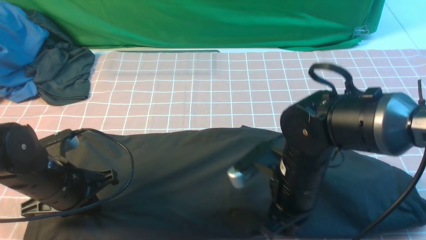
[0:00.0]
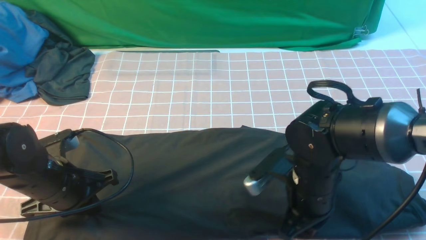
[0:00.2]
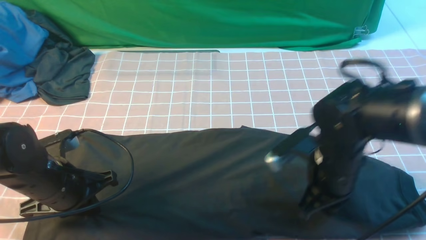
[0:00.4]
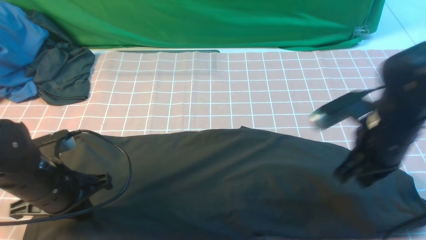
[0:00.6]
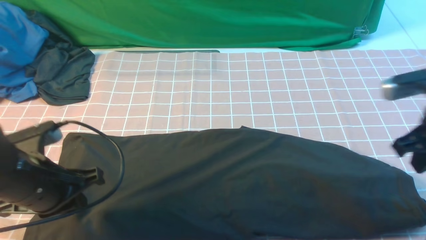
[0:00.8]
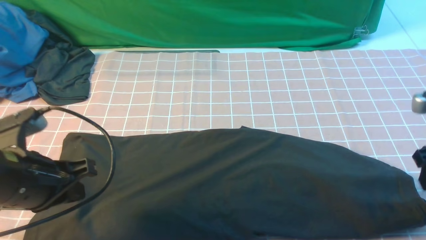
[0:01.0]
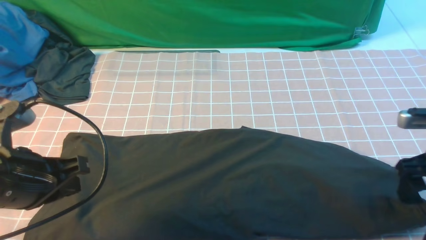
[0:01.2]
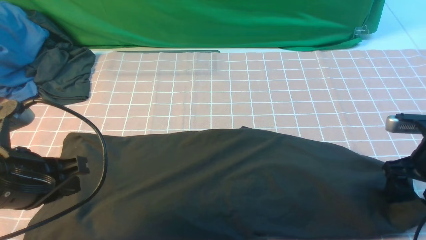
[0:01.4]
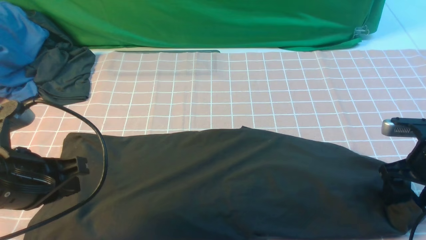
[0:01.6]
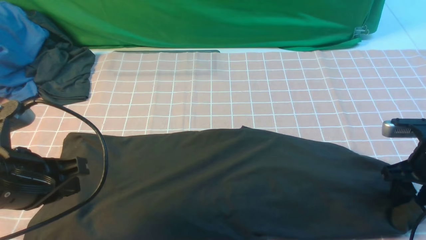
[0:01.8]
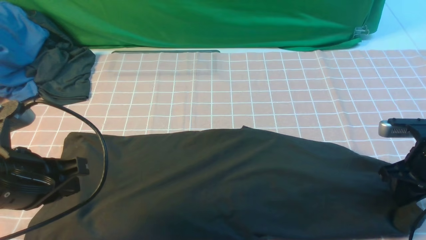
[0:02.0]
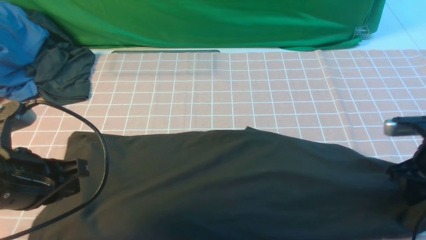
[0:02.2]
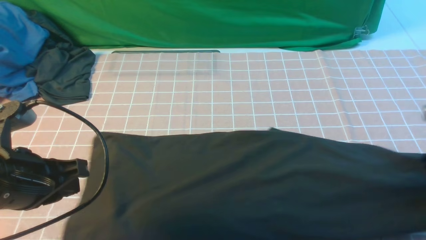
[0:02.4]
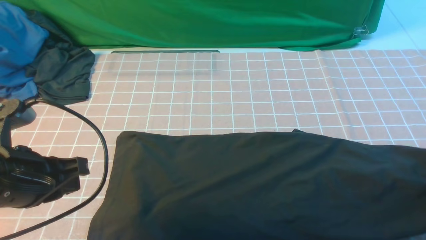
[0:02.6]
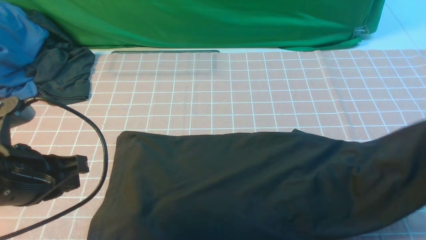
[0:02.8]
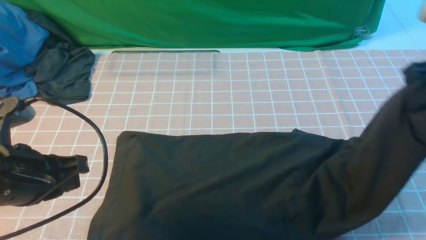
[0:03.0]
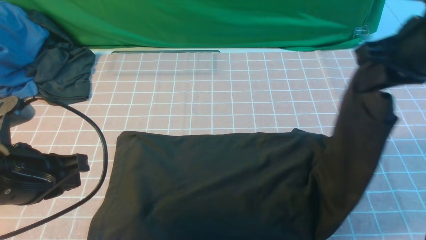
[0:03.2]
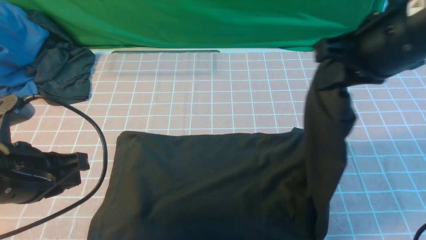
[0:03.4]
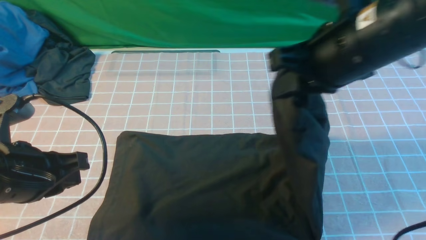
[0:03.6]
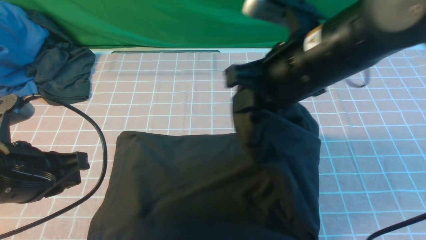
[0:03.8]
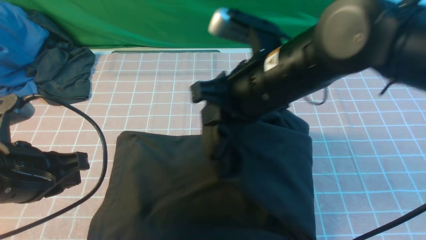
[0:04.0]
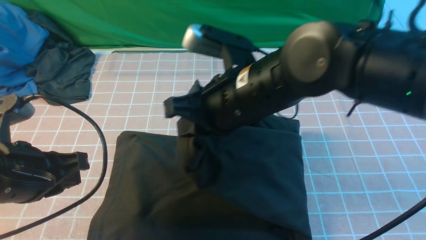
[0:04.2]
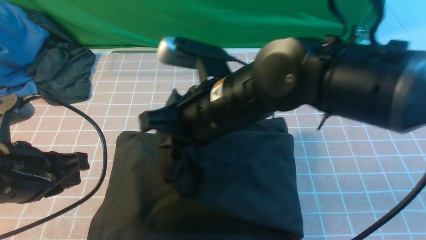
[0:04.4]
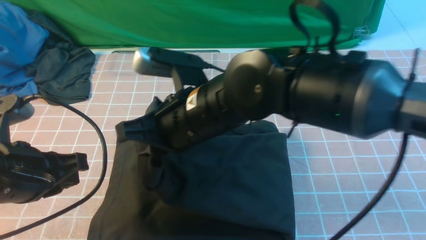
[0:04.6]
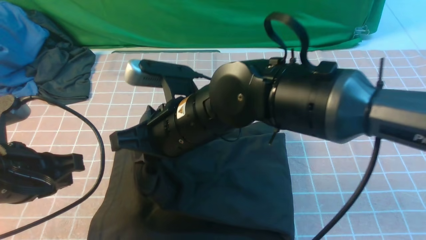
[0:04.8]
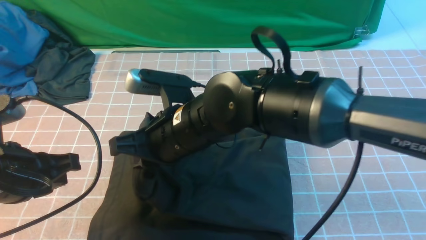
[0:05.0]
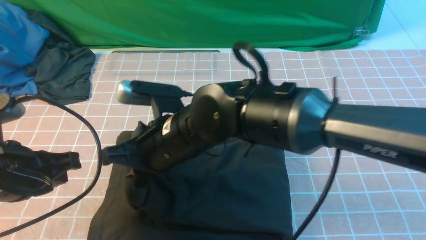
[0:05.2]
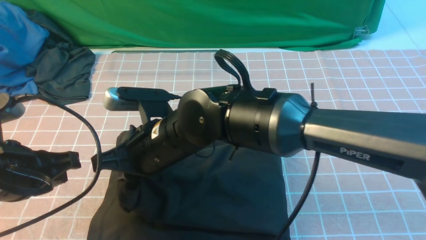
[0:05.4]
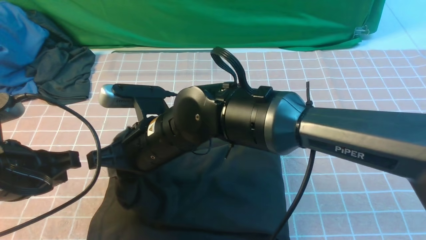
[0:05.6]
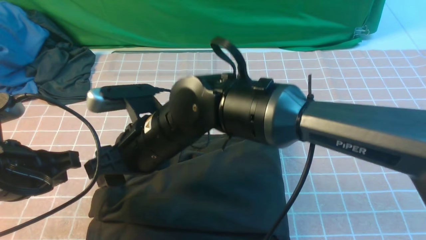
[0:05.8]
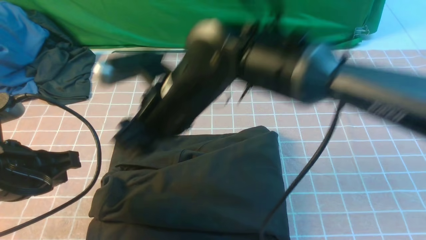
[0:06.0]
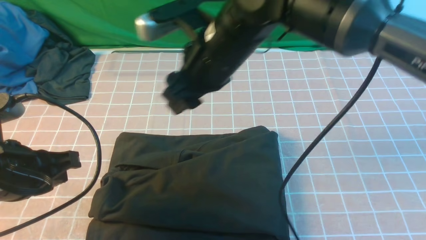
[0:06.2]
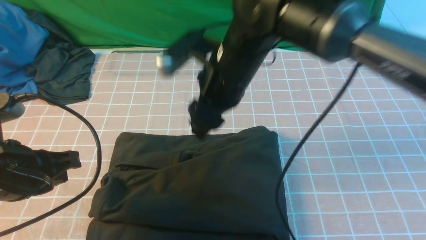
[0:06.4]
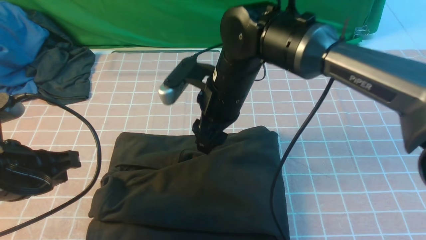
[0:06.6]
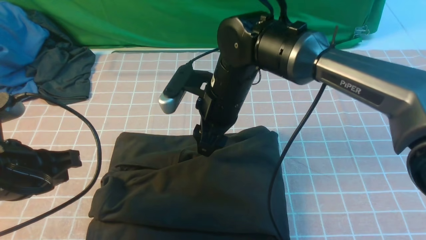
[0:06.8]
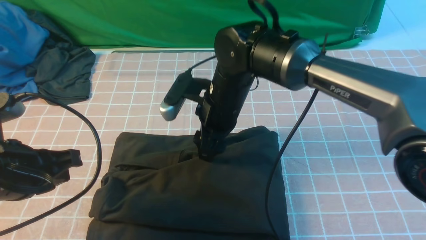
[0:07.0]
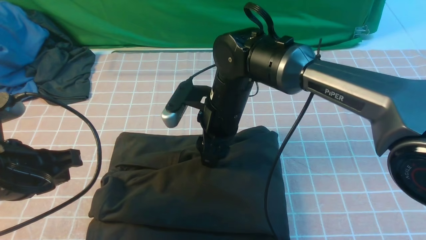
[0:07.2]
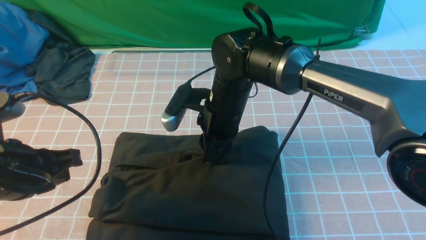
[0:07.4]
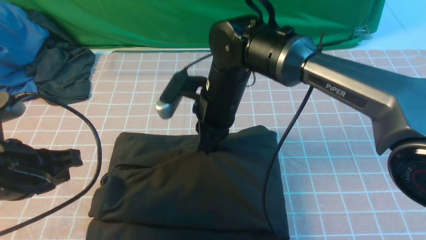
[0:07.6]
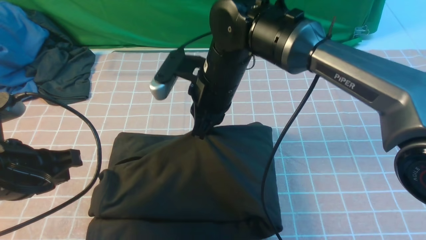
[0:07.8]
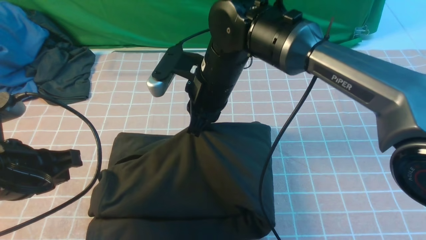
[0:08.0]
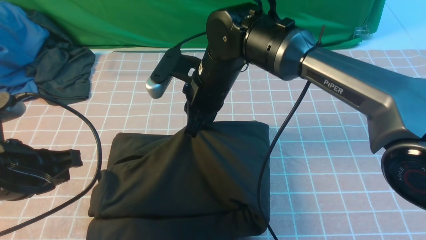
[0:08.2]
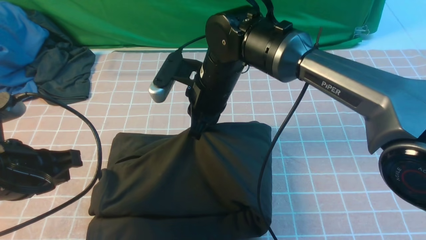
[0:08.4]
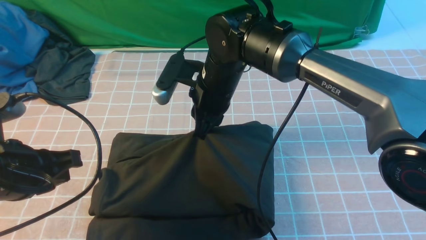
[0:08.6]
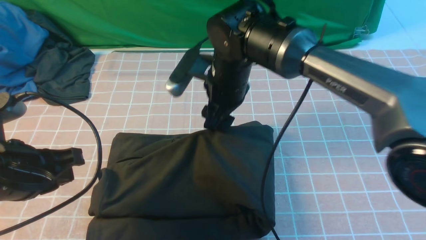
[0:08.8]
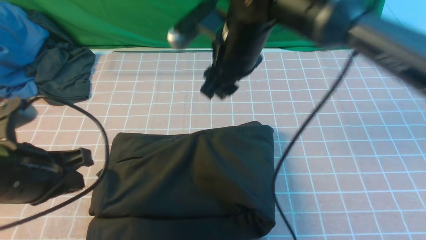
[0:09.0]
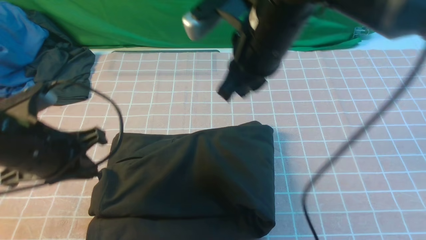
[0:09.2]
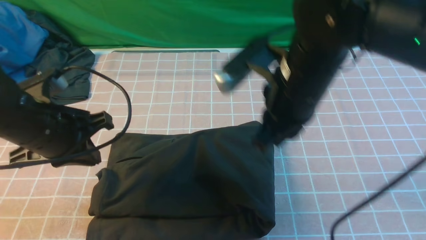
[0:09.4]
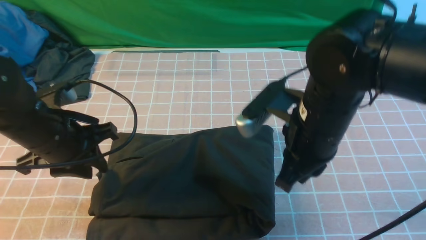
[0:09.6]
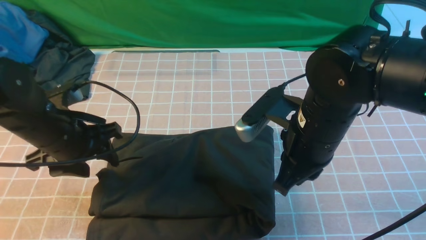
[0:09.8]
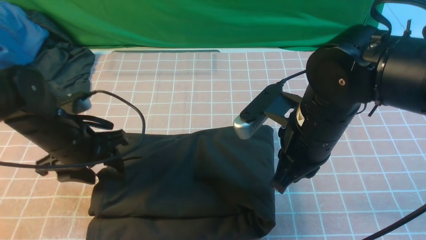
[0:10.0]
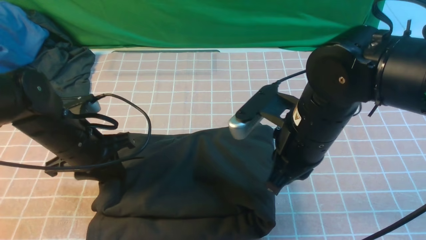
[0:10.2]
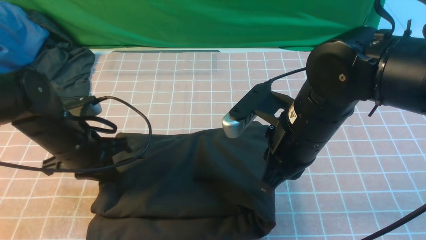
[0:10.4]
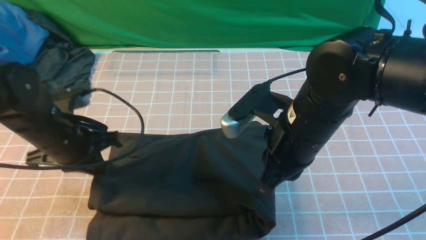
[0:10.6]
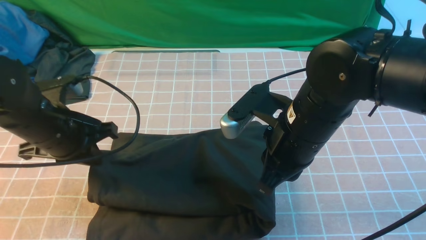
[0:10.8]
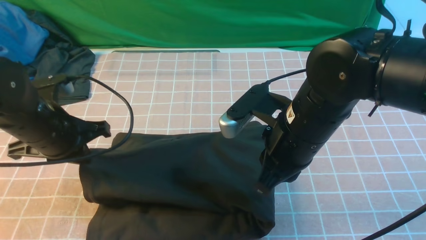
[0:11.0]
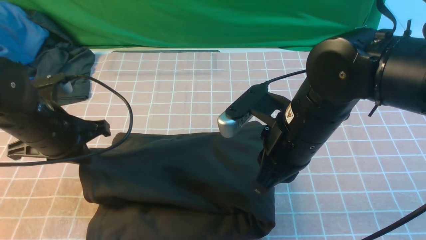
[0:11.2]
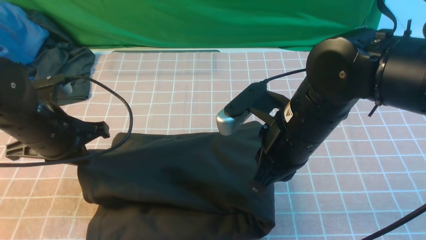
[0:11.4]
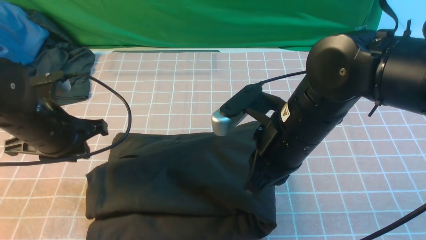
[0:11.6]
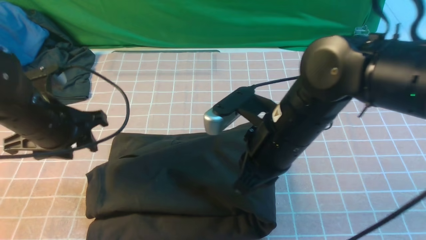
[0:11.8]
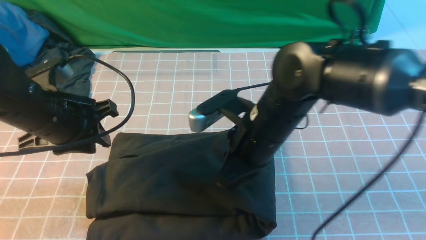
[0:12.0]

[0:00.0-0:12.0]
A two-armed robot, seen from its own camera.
Step, 0:02.0 to 0:06.2: use the right arm to drag the right edge of the fabric to the left and folds it over the left edge.
0:00.0 to 0:01.6: The right gripper moves to the right, about 25 cm, and opens its fingers. The left gripper is displaced upward and backward by about 10 cm.
0:01.6 to 0:03.0: The right gripper shifts some 20 cm upward, and closes.
0:03.0 to 0:04.4: The right gripper heads to the left, covering approximately 30 cm.
0:04.4 to 0:06.0: The right gripper opens.
0:06.0 to 0:07.6: The right gripper travels forward and downward by roughly 10 cm, and closes its fingers.
0:07.6 to 0:09.0: The right gripper goes about 10 cm upward, and opens up.
0:09.0 to 0:10.4: The right gripper moves backward and to the right, about 10 cm, and closes. Meanwhile the left gripper travels forward and downward by roughly 10 cm, and opens and closes again.
0:10.4 to 0:12.0: The right gripper changes place by some 5 cm, while the left gripper shifts roughly 5 cm upward.

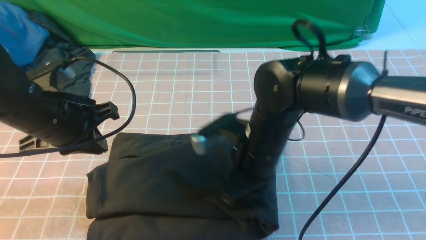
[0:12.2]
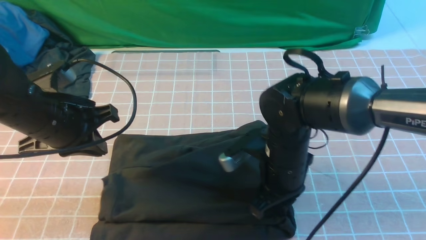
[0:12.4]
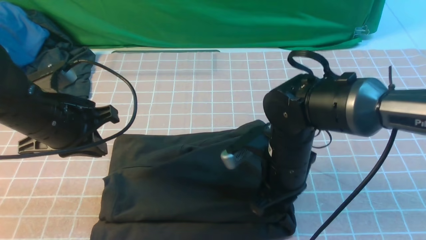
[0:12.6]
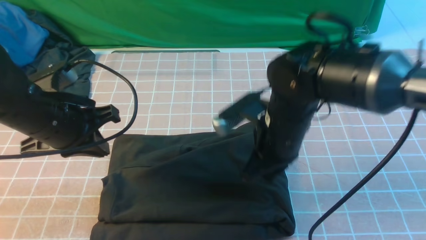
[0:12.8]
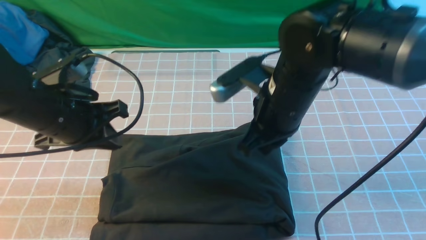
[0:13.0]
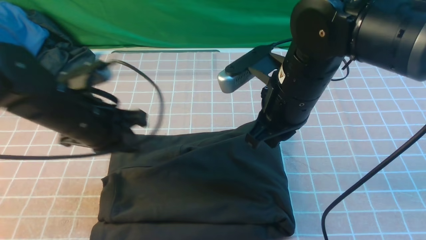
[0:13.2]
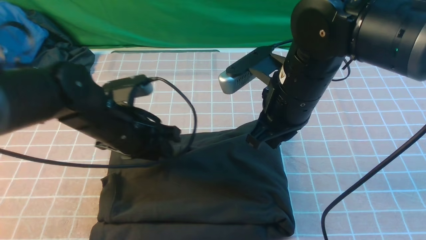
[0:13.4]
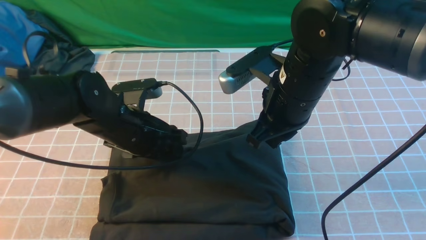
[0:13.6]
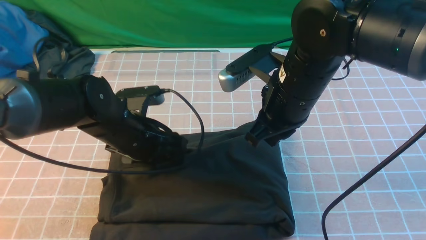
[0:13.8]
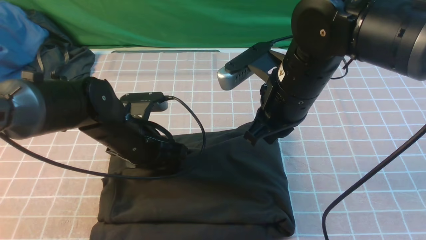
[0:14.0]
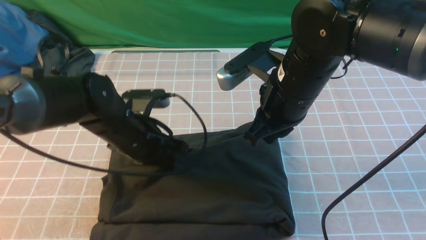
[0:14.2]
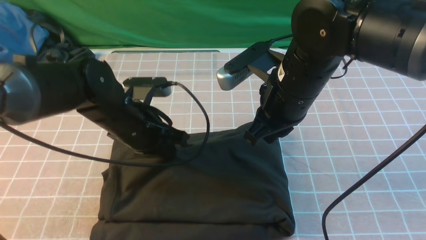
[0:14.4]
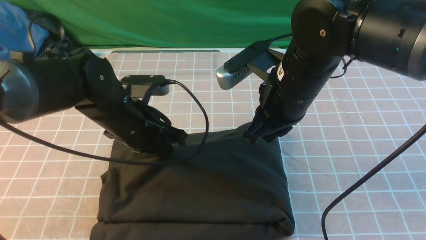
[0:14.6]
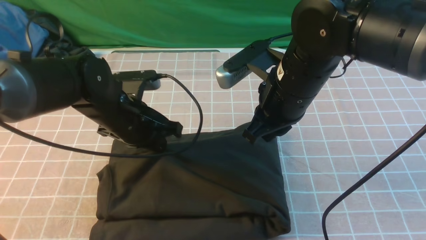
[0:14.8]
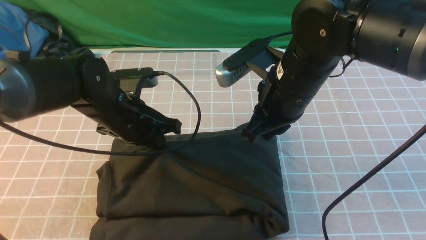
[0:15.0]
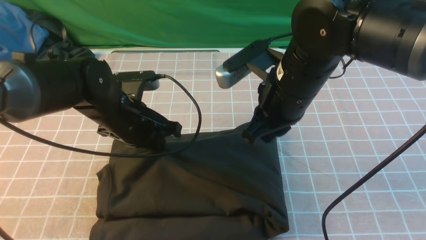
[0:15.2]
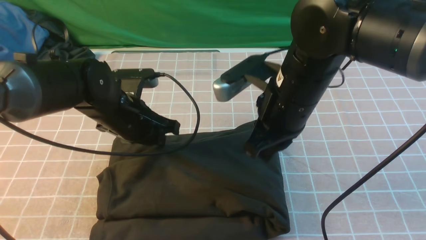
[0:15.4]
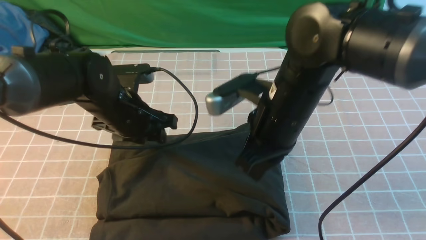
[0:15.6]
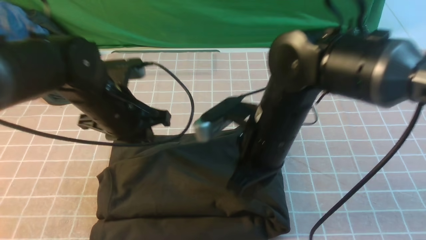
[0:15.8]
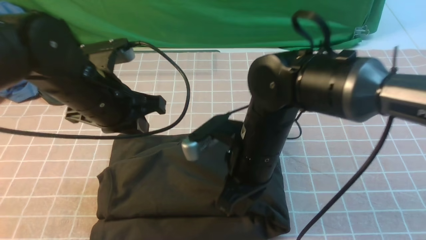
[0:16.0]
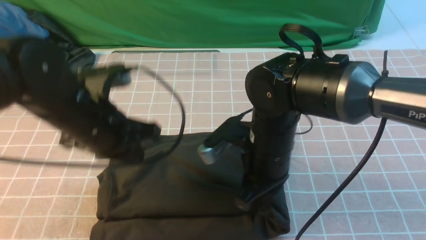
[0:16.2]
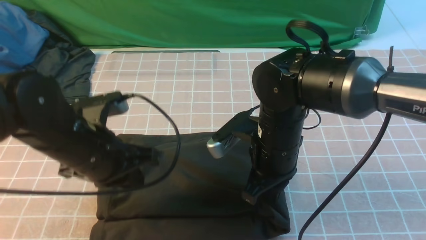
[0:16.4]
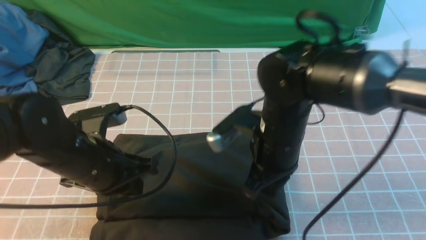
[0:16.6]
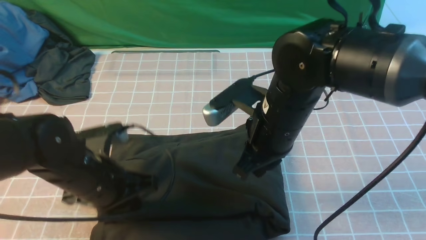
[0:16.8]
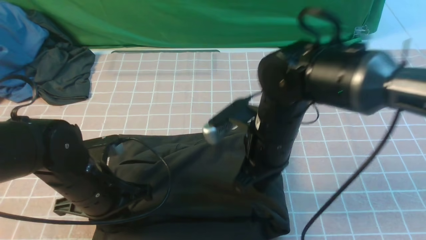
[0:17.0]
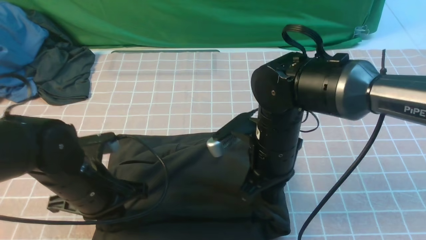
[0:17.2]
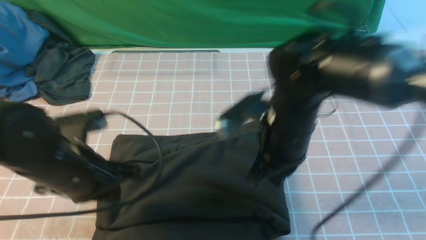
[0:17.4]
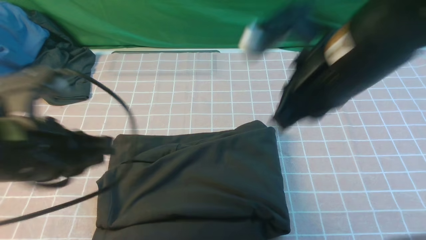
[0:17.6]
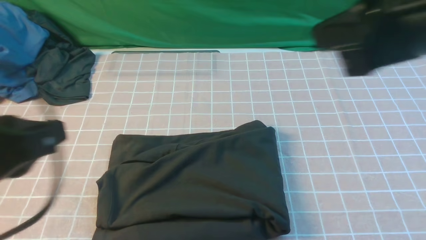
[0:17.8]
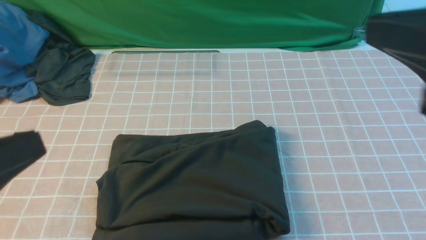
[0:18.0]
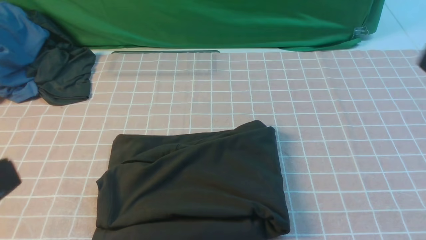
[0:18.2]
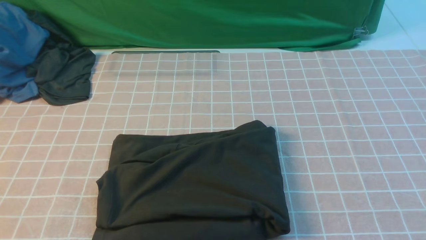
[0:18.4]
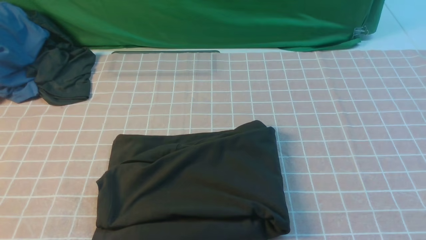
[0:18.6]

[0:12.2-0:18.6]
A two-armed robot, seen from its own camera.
0:12.2 to 0:13.8: The right gripper shifts about 10 cm upward. The left gripper goes roughly 10 cm to the right and downward, and opens up.
0:13.8 to 0:15.4: The left gripper closes its fingers.
0:15.4 to 0:17.0: The right gripper heads downward, covering approximately 5 cm; the left gripper goes about 10 cm backward, and closes its fingers.
0:17.0 to 0:18.6: The right gripper shifts some 40 cm backward, to the right and upward; the left gripper is displaced backward and upward by approximately 30 cm.
